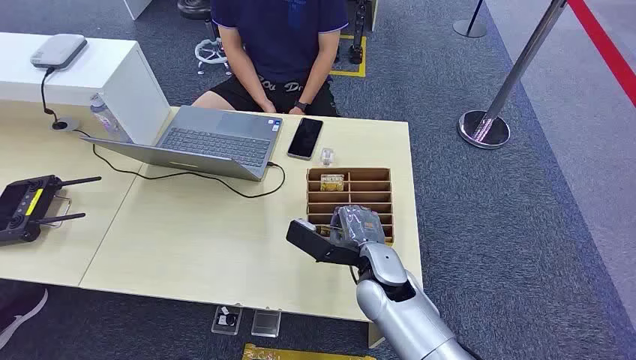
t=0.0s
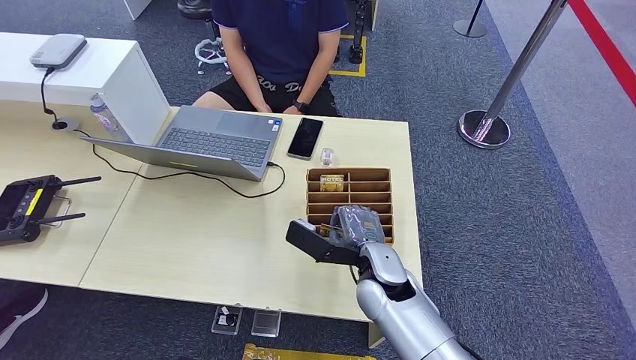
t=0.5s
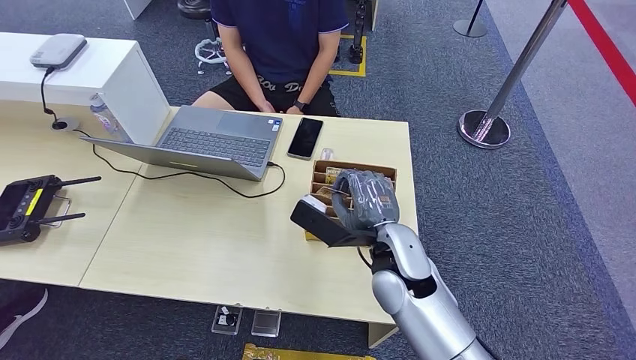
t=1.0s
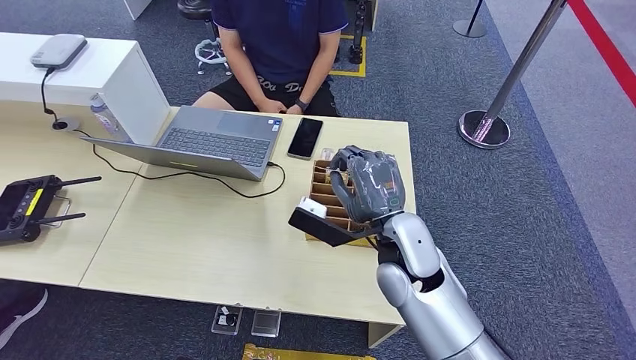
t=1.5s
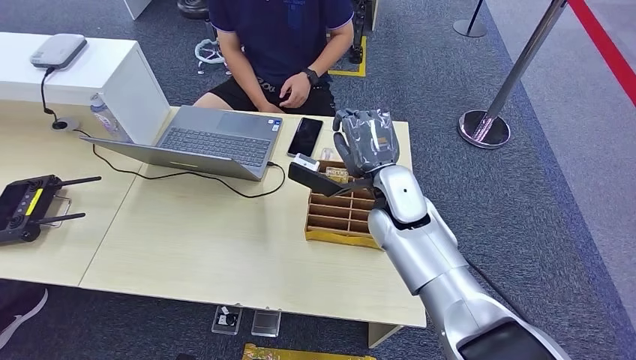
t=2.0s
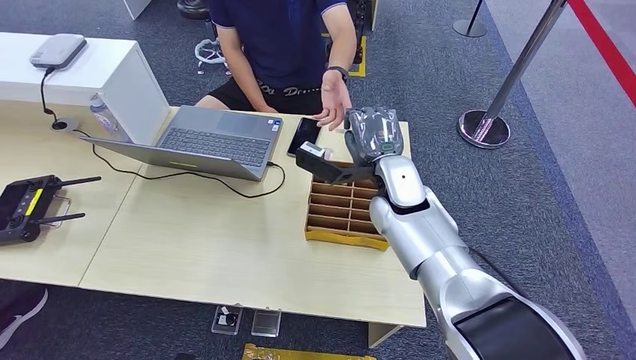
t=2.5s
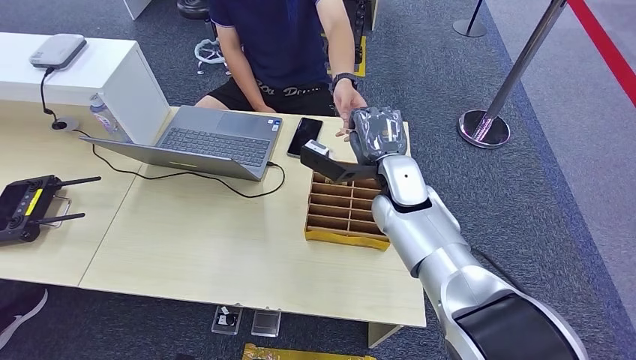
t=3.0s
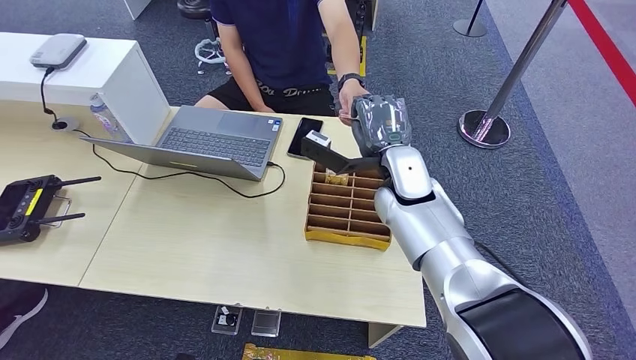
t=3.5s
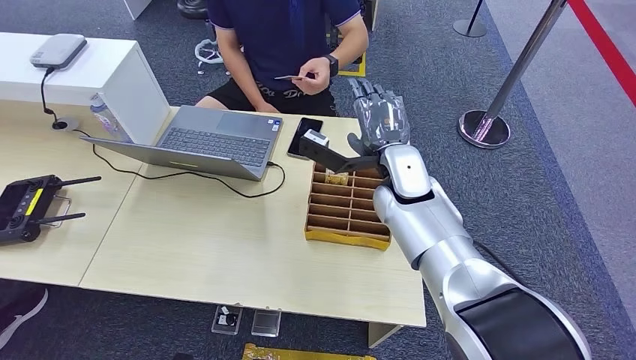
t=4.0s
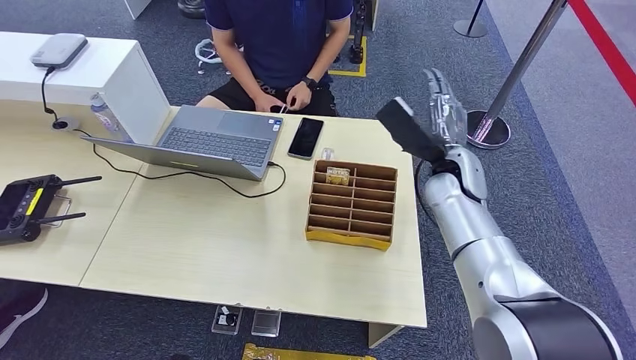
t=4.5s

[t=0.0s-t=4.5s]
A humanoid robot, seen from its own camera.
Task of the whole recording: Pick up the card and hand it over to the target person.
Step, t=0.0s to t=1.5s: Pick up the key card from the card box.
Step, t=2.0s to t=4.5s: Hand the key card to the target.
t=2.0s to t=4.5s: The right hand travels to the right by some 25 cm.
